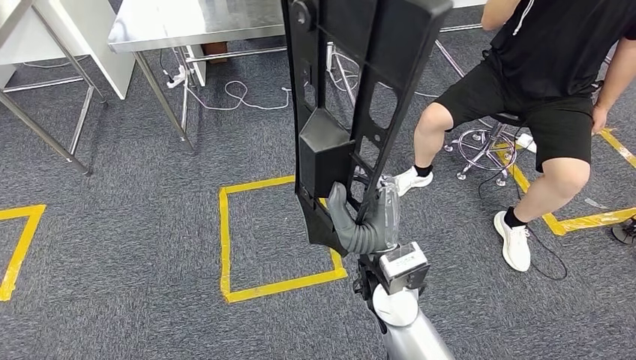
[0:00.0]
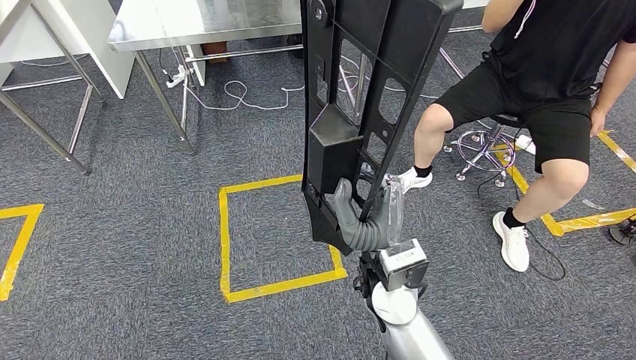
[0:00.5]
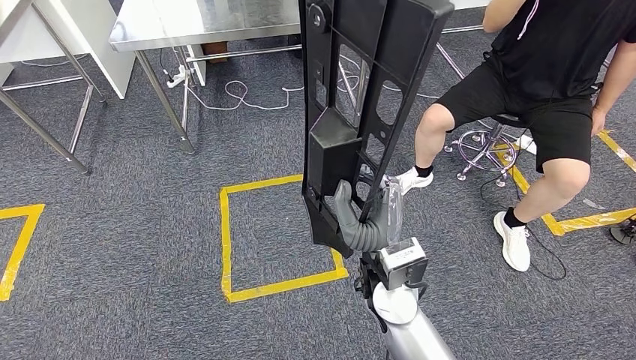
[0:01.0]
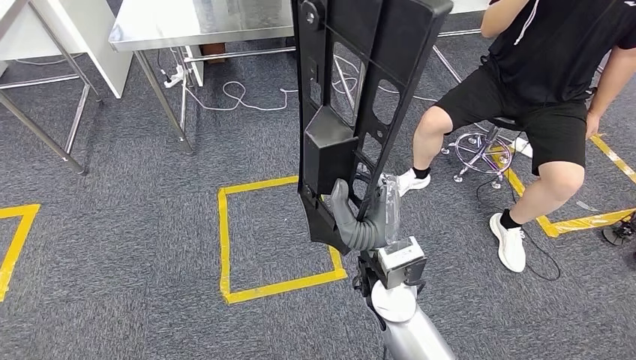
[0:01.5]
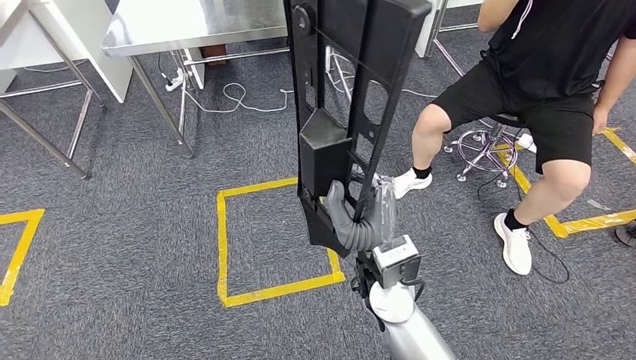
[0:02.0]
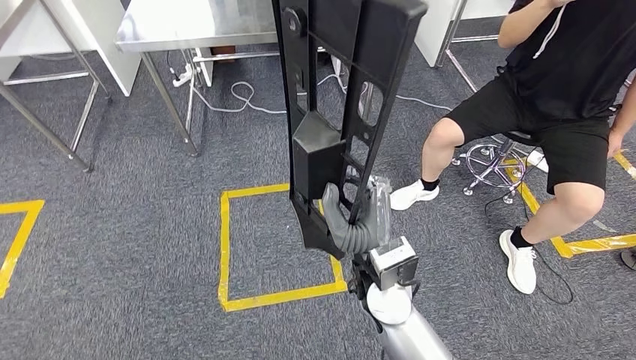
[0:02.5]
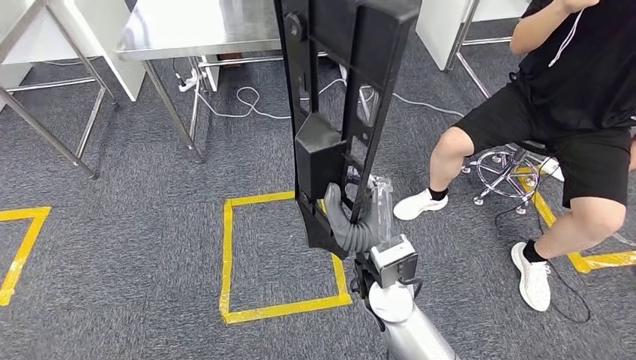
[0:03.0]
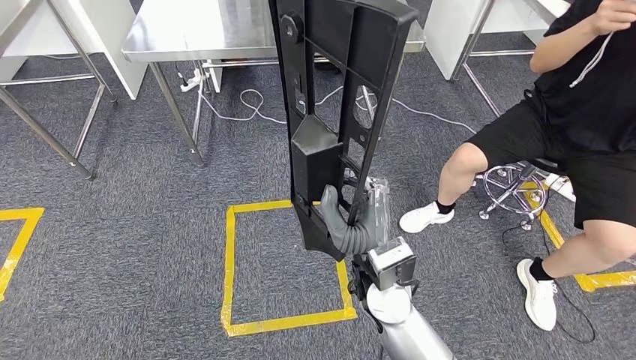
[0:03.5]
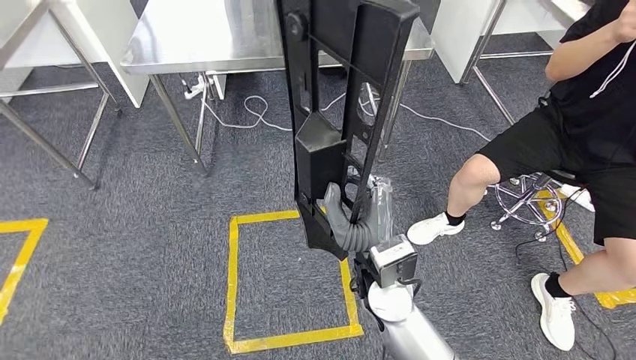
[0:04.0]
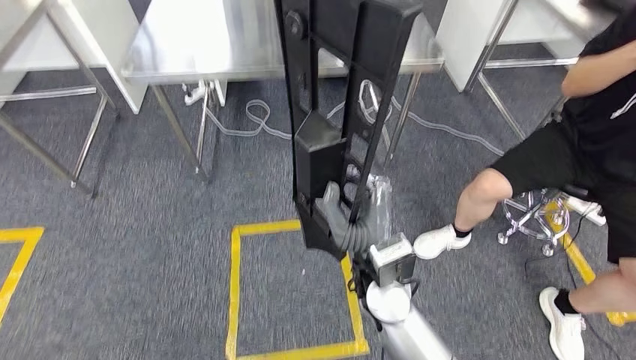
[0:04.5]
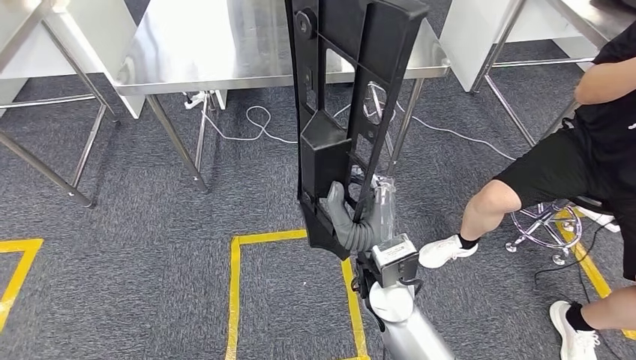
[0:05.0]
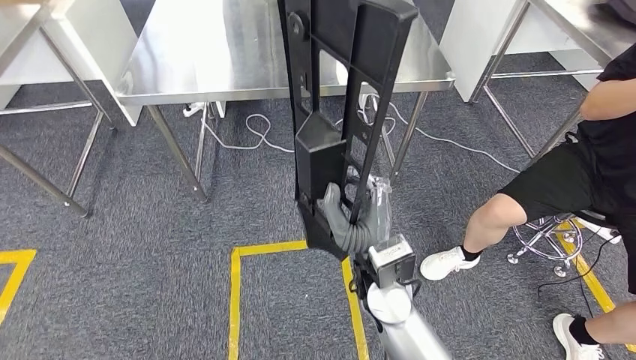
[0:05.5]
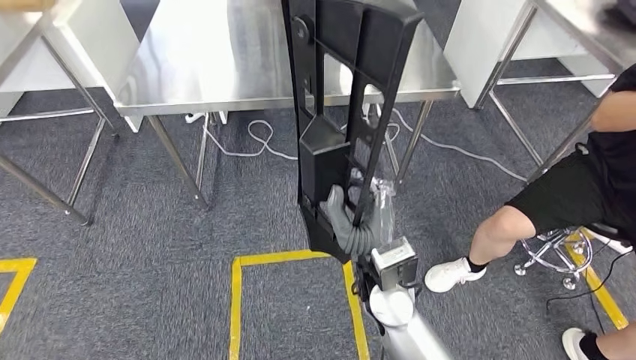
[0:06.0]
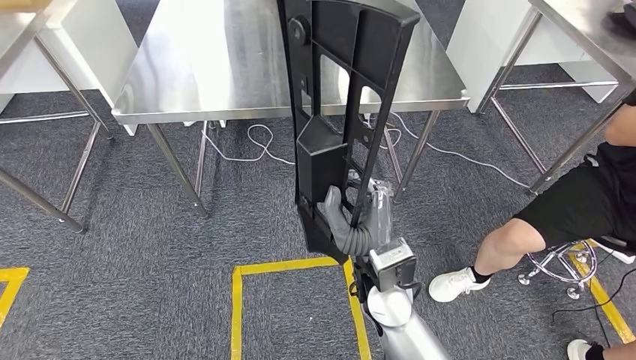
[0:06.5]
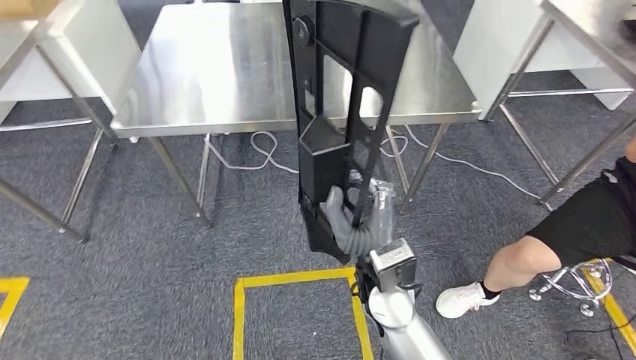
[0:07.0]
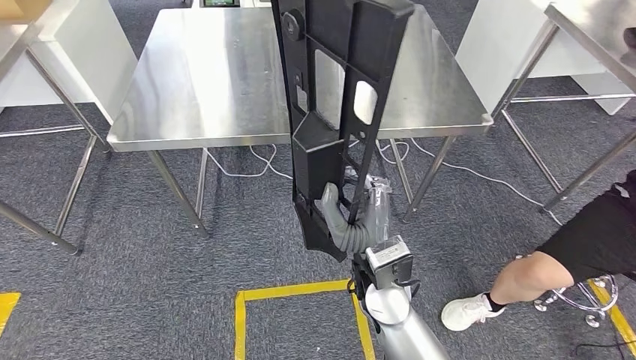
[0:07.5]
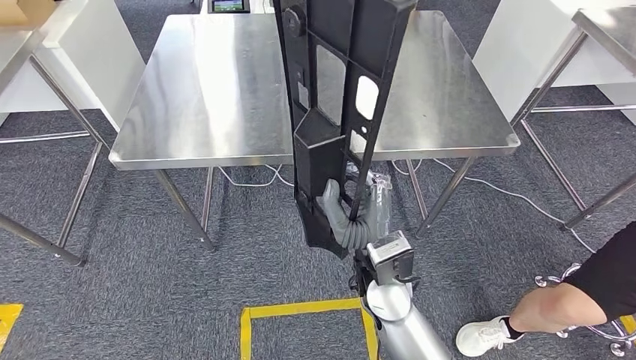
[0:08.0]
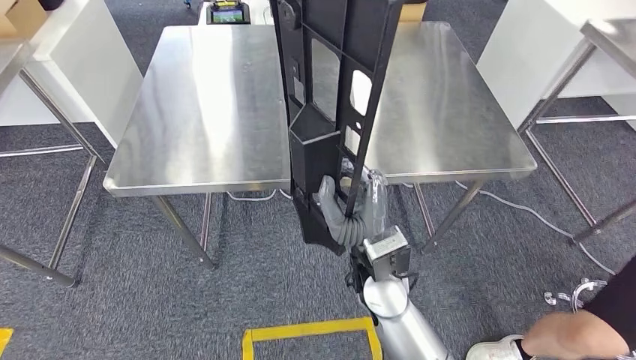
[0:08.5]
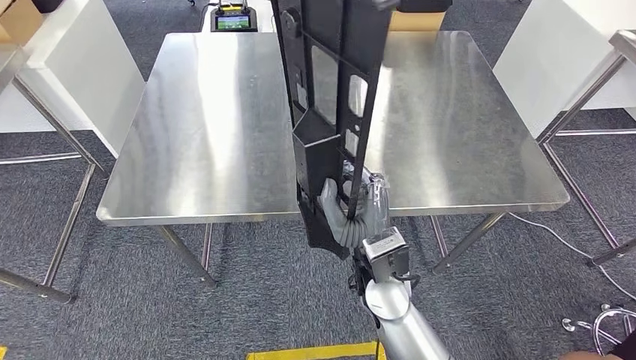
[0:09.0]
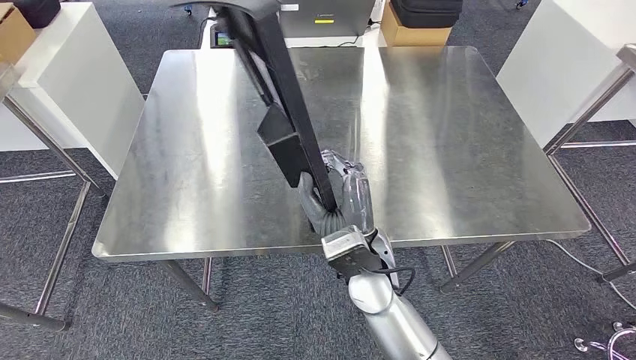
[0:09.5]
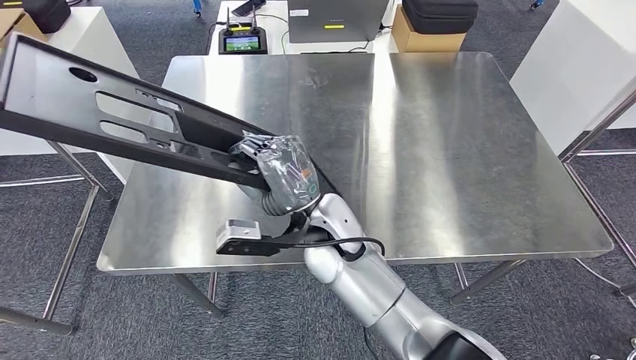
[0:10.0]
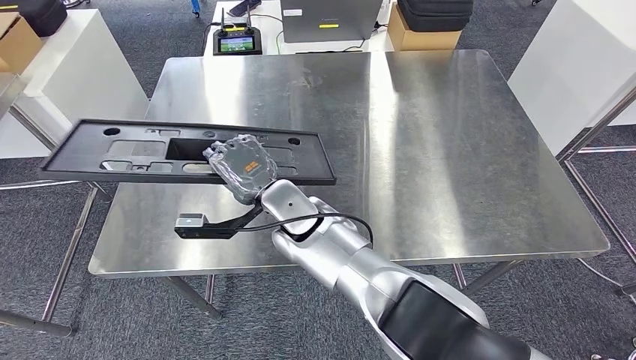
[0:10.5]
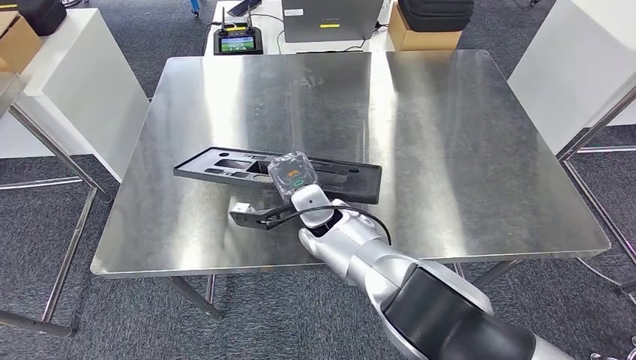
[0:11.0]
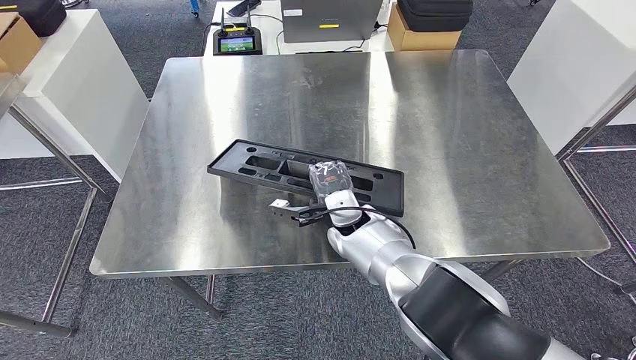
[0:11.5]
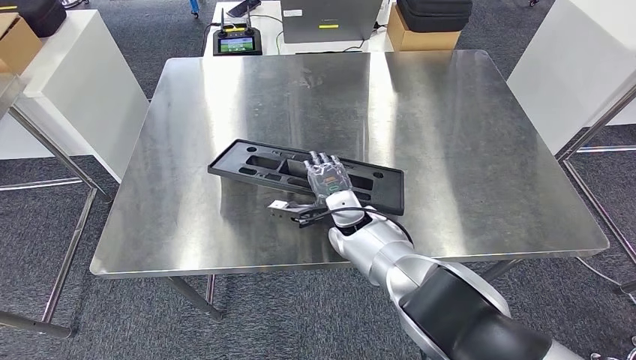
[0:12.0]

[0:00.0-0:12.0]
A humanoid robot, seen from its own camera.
Step, 0:00.0 to 0:08.5: Move the large parts to the workbench.
0:00.0 to 0:02.0: Both hands stay about where they are.

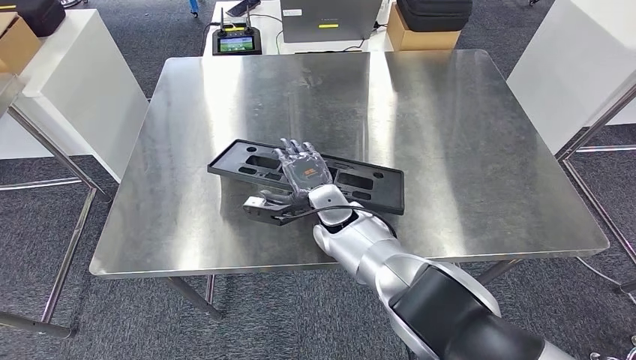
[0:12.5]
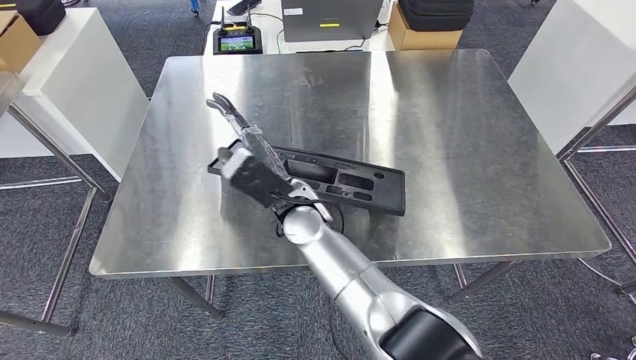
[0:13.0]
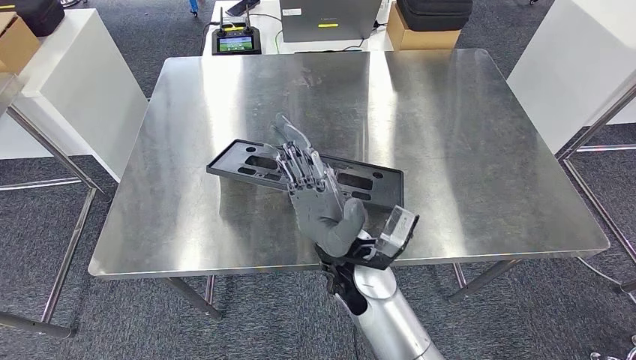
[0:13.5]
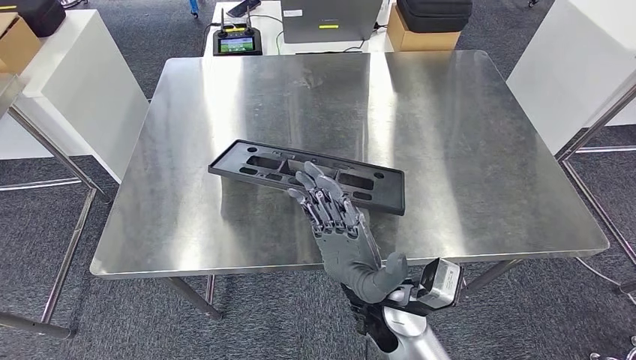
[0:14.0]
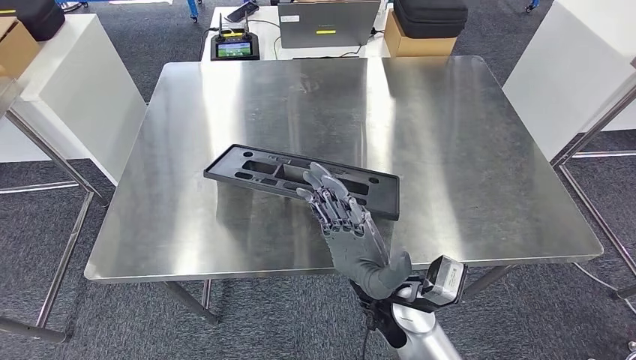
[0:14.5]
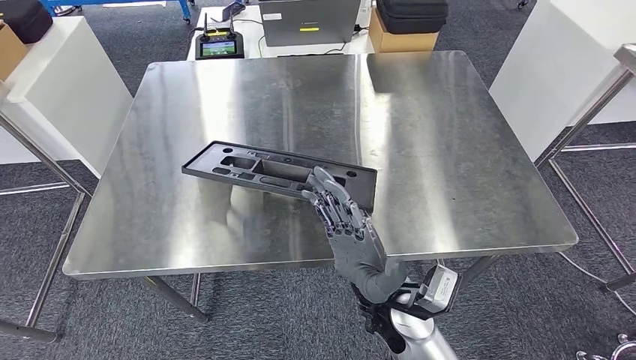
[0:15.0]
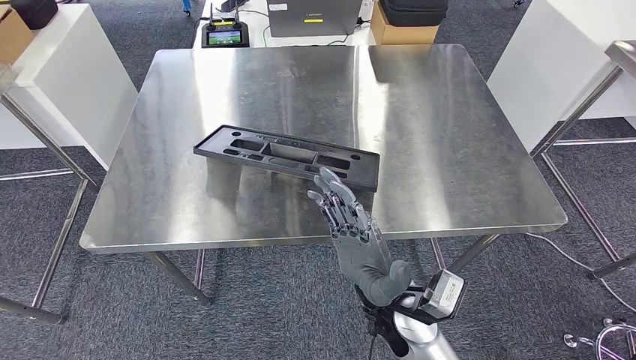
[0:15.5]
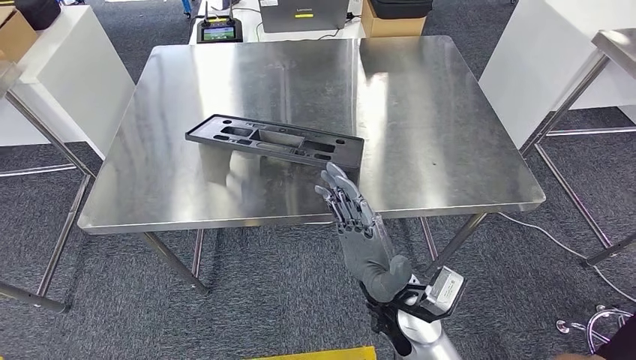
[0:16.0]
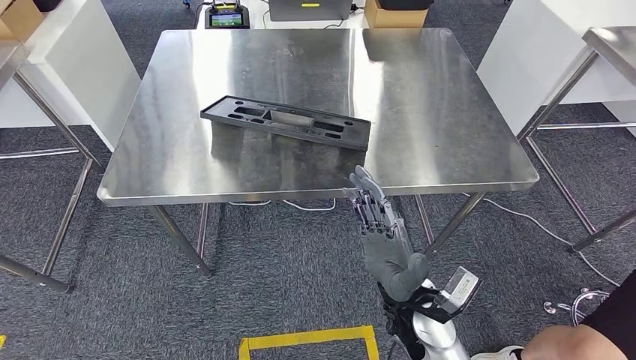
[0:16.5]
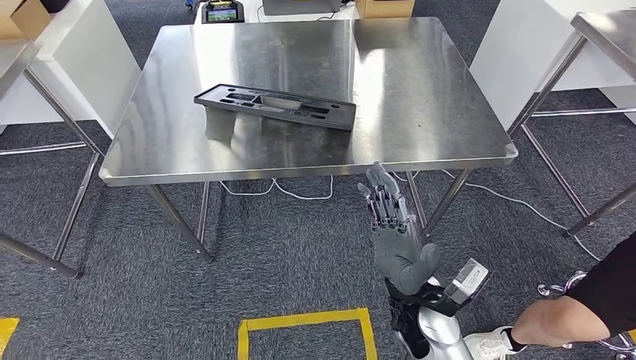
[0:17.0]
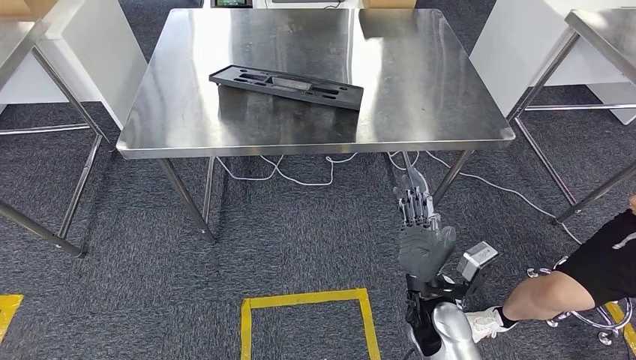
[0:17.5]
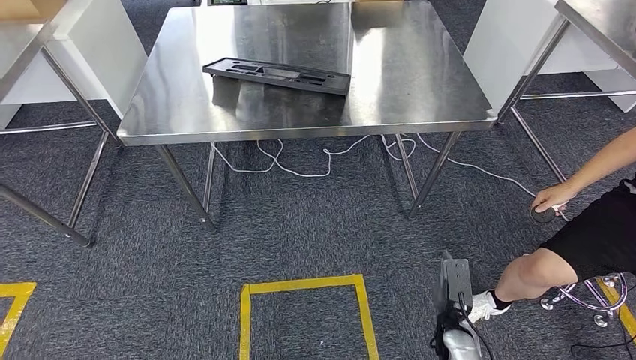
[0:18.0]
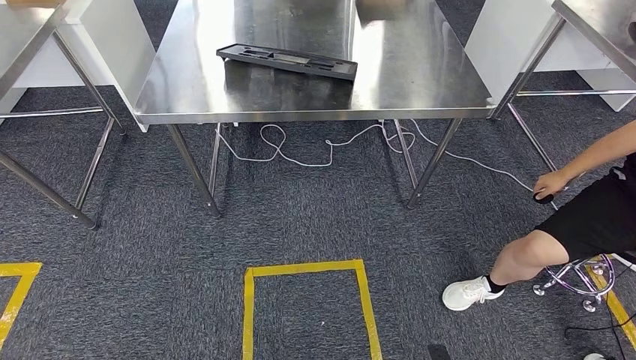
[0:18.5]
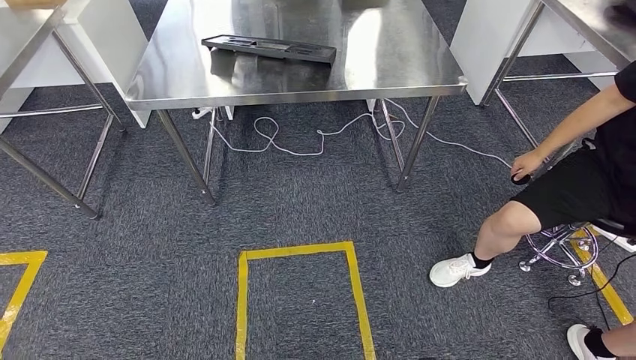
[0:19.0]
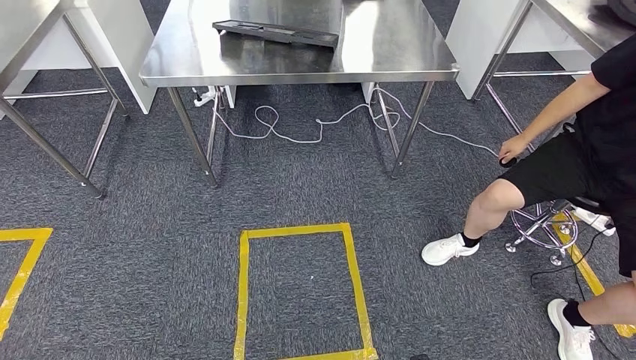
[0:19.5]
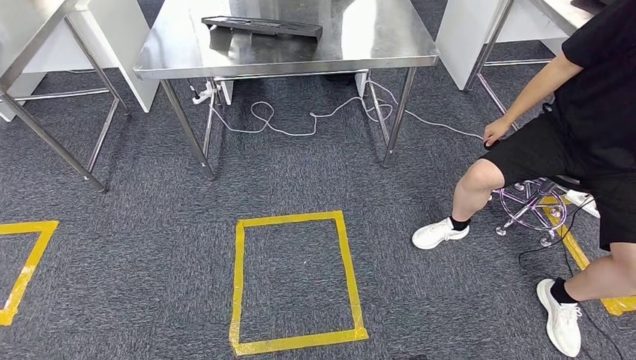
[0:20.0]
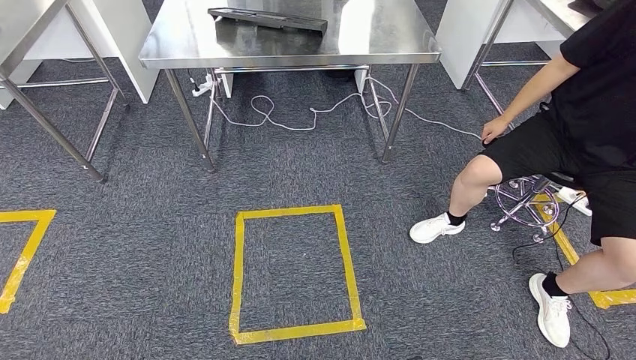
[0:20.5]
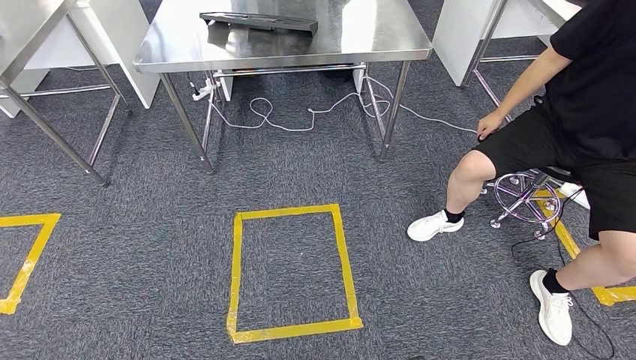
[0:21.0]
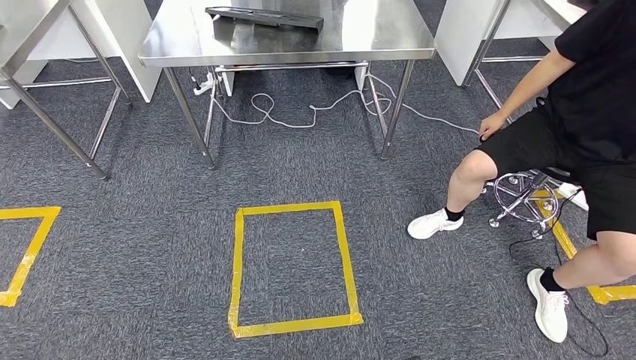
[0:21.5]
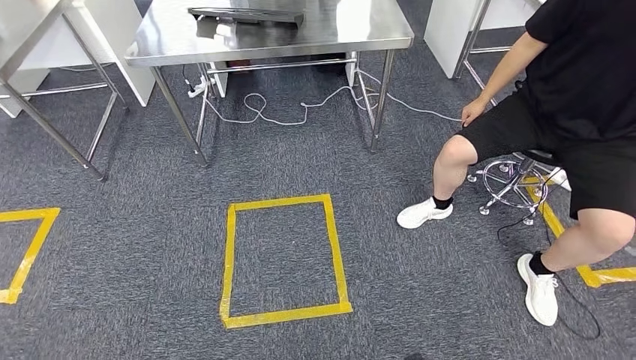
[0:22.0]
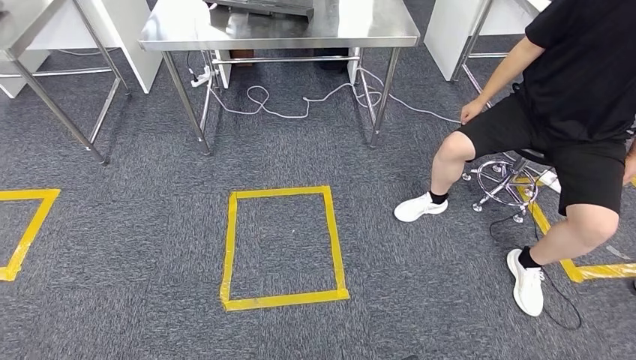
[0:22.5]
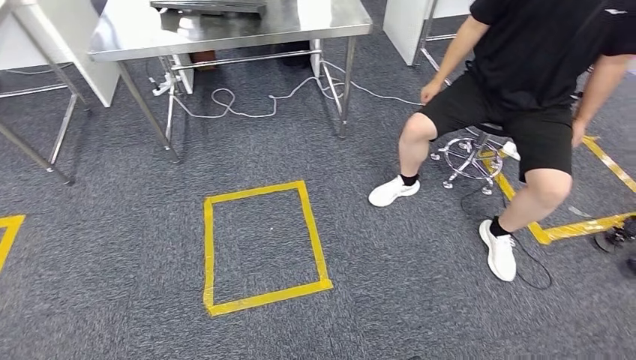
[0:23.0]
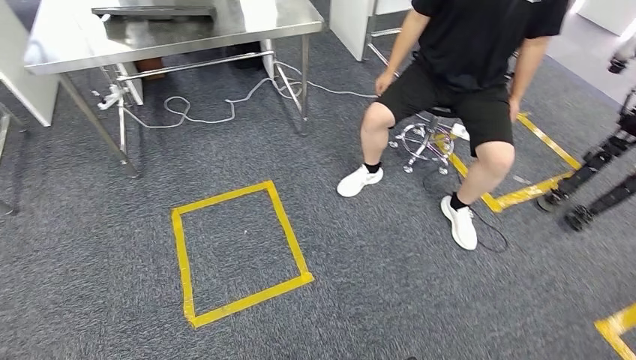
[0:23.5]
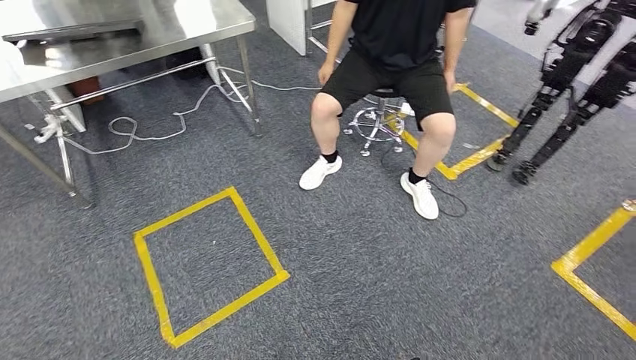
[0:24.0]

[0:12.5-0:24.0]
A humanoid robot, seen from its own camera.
Step, 0:12.5 to 0:18.0: Insert the large parts into the corresponding slots on the workbench.
